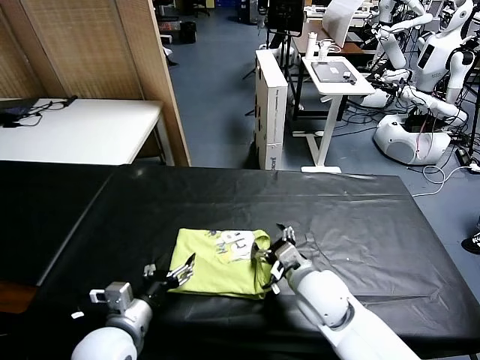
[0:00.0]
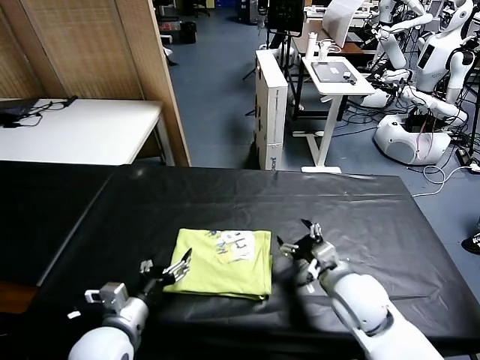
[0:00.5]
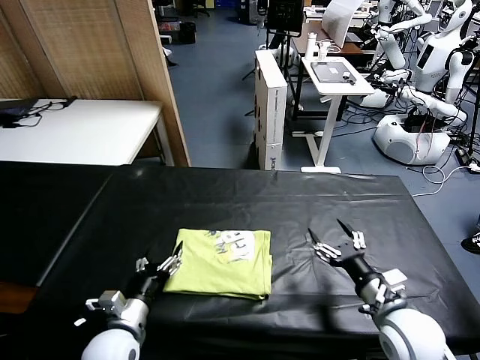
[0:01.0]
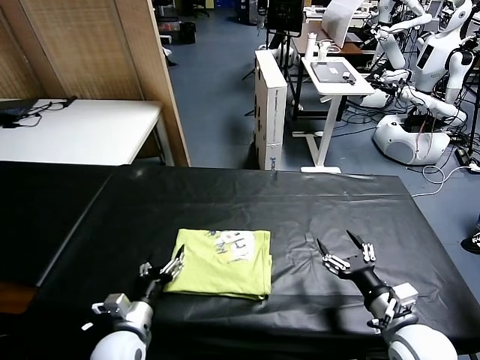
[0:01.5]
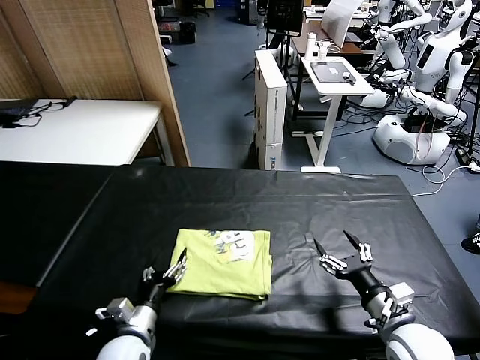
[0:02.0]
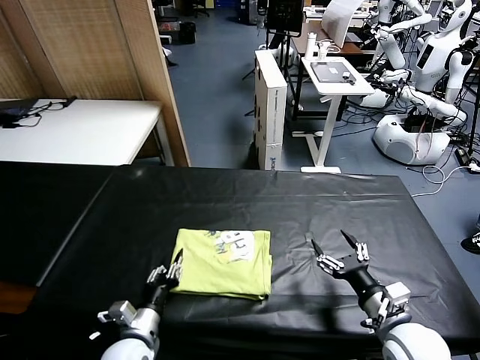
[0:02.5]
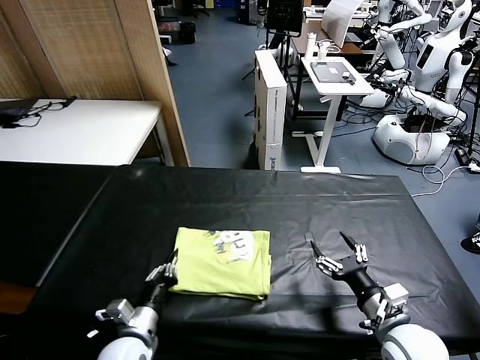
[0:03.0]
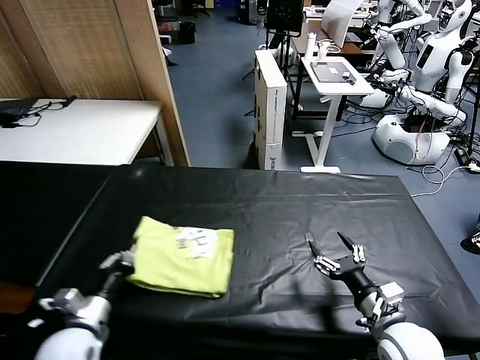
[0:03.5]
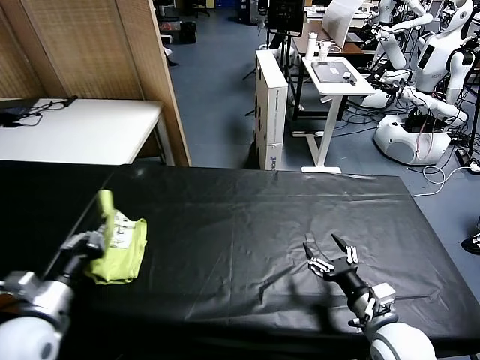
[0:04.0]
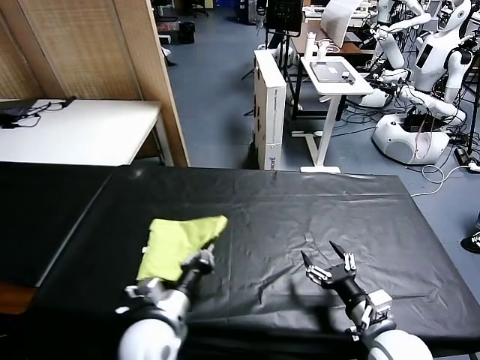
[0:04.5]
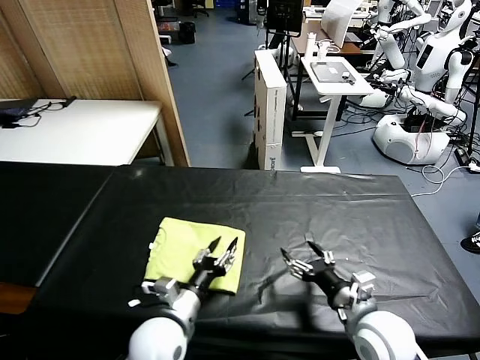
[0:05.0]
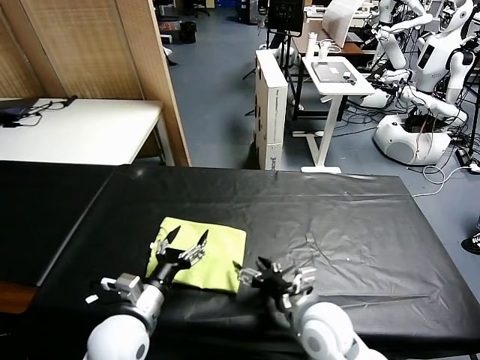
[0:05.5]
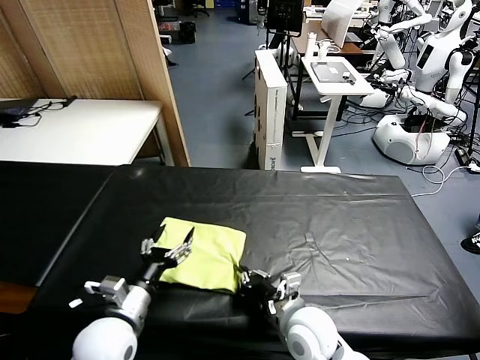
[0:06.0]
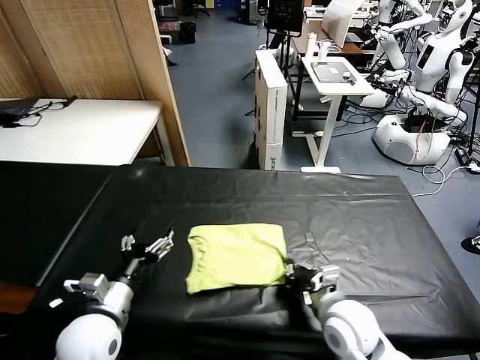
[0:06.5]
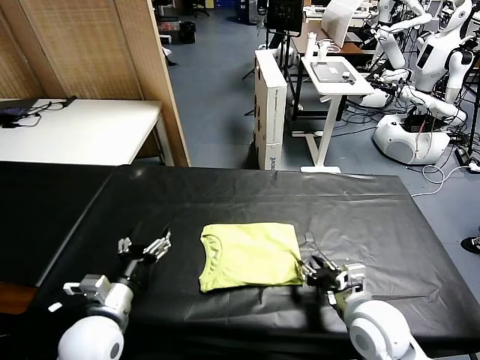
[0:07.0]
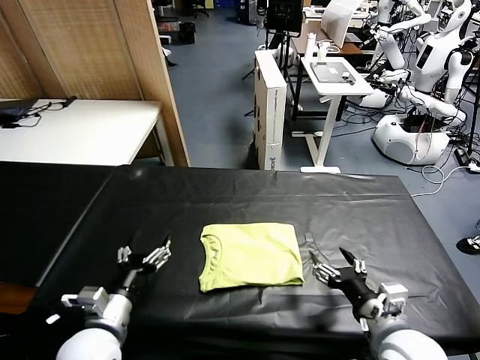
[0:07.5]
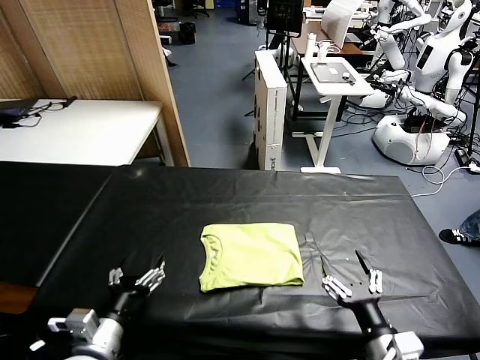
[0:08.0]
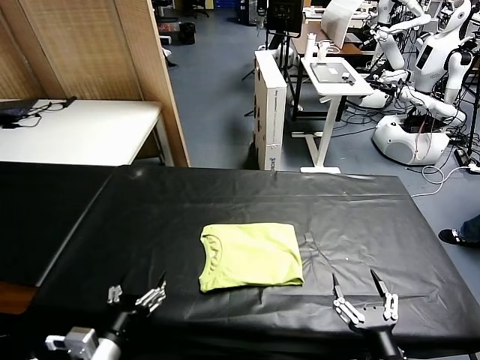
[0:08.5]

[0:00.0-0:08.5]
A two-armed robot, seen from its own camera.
Task of the whole recording: fold and organize the clothes.
Step, 0:00.0 to 0:04.5: Flip the folded clothes over with left gripper.
Step, 0:05.0 to 0:07.0: Drag the clothes to the center of the table.
0:00.0 to 0:02.0: The right gripper is displaced to the right and backward by approximately 15 cm. The left gripper goes roughly 10 cm downward.
0:02.0 to 0:04.0: The left gripper is displaced upward by about 15 cm, goes to the left and returns, some 15 cm each way, and closes up.
0:04.0 to 0:06.5: The left gripper moves some 15 cm to the right and comes back, and opens its fingers, while the right gripper goes some 5 cm to the left and forward, and closes its fingers.
0:06.5 to 0:08.5: The left gripper is displaced backward by approximately 10 cm. Meanwhile the right gripper shifts roughly 20 cm backward, and opens.
